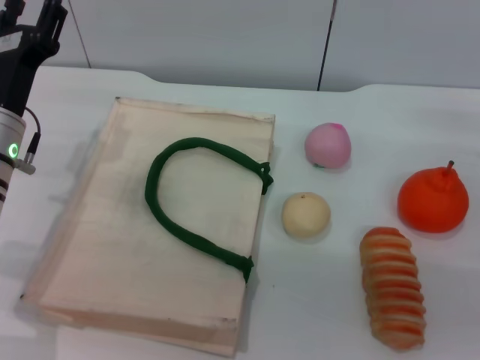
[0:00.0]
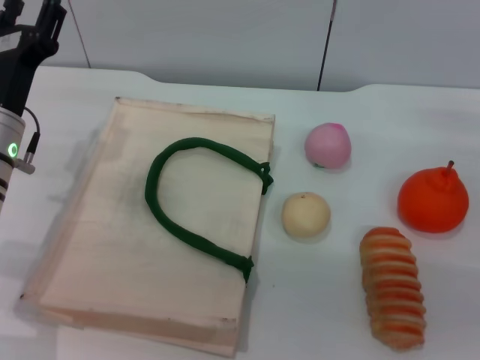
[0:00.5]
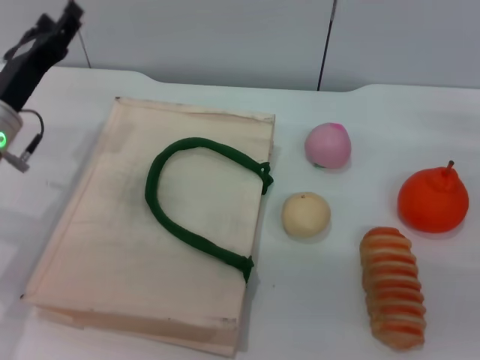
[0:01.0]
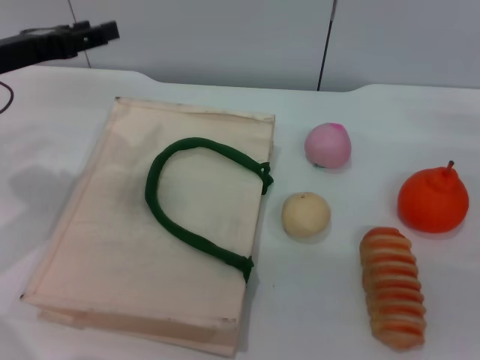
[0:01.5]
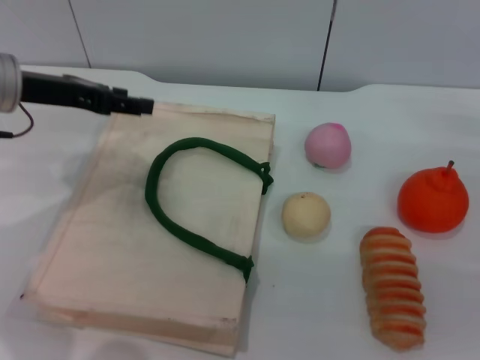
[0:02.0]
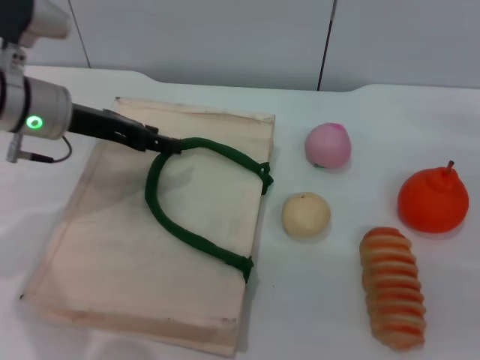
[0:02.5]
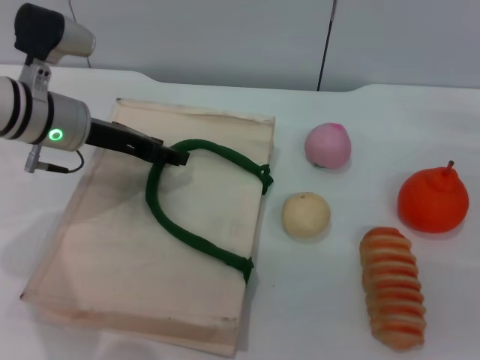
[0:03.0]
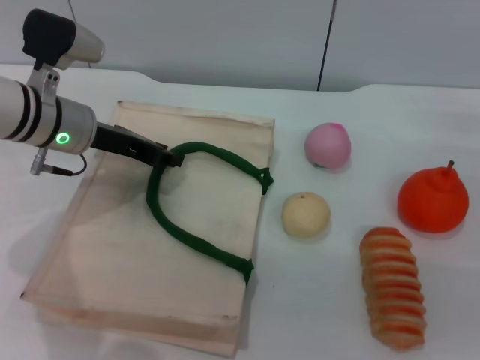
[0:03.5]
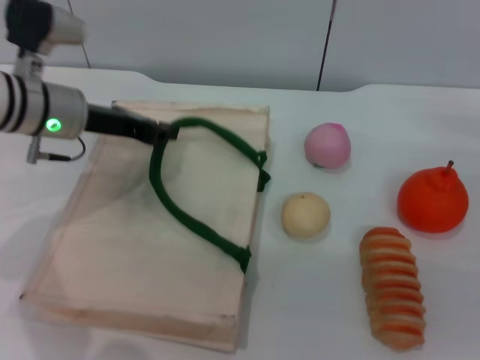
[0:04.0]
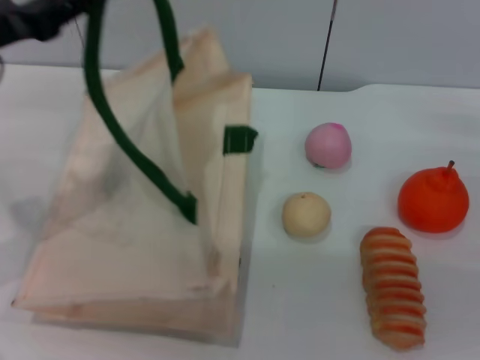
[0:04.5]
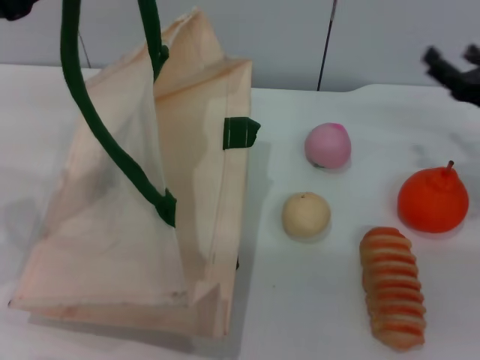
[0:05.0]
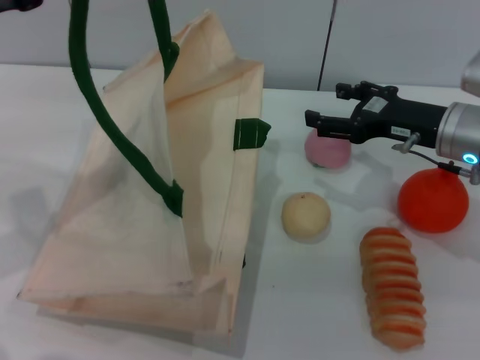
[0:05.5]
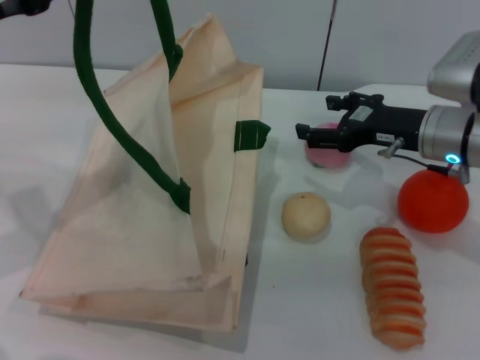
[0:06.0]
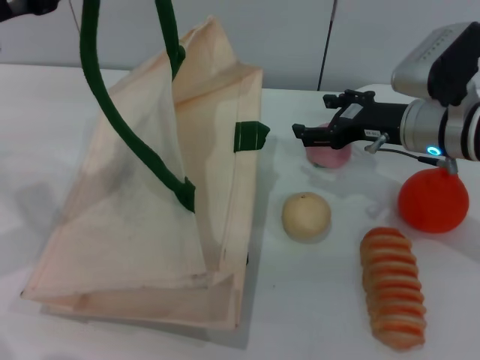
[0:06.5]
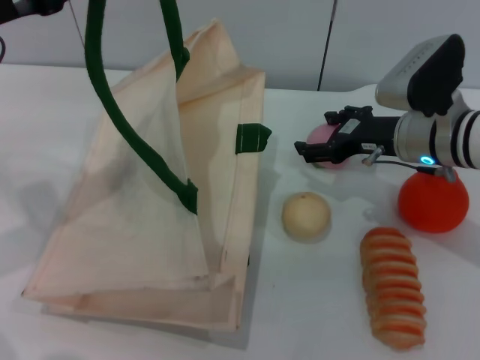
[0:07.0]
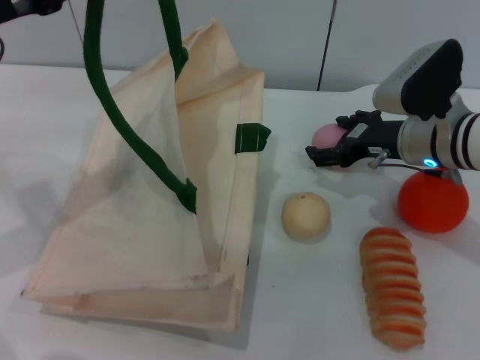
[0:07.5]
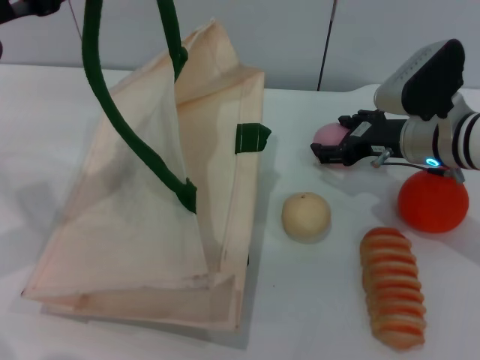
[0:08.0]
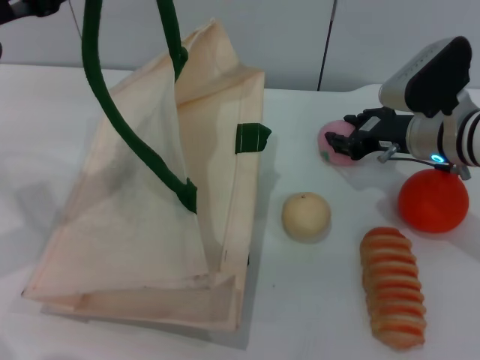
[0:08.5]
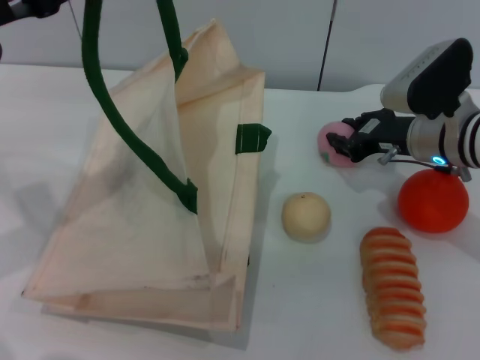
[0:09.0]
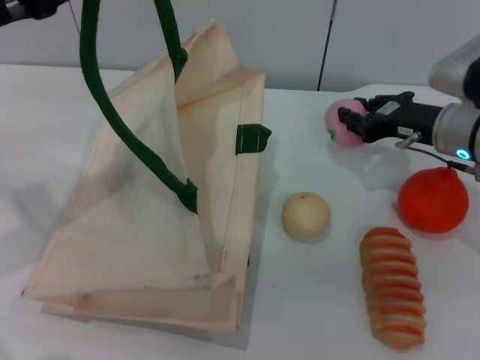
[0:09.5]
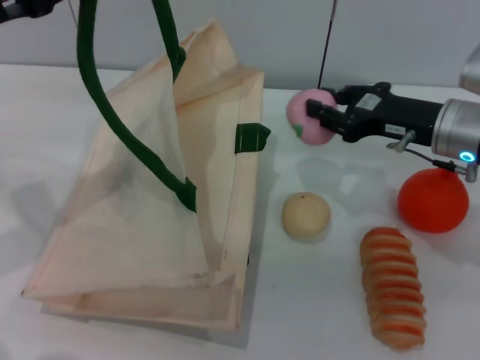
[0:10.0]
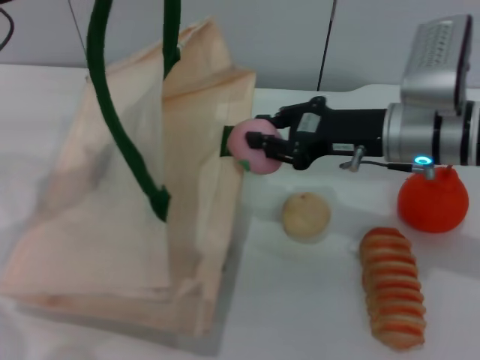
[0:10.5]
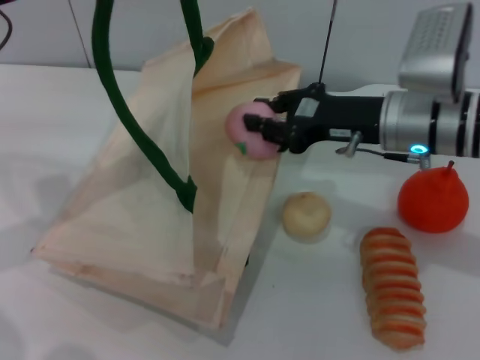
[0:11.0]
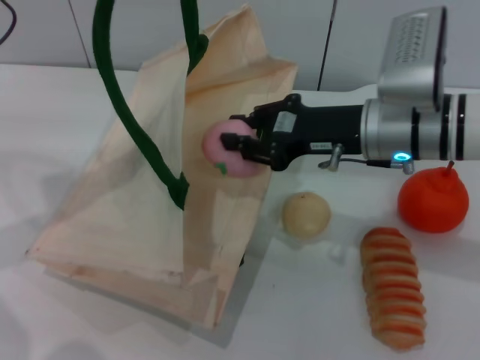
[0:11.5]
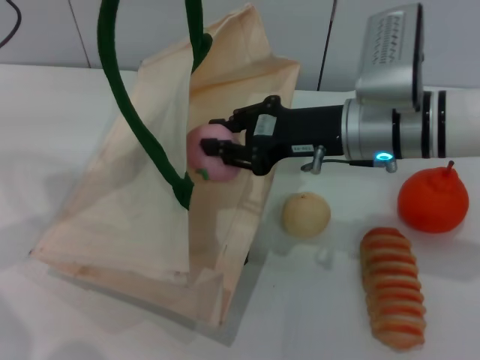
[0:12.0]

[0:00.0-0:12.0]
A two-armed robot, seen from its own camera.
Task of the whole recording: pick up the peach from the table and place it in the white handbag.
Step, 0:00.0 to 0:04.5: Lift the woven bag with the left gripper to open it.
Step, 0:05.0 to 0:09.5: Pick up the peach with the right gripper.
0:00.0 to 0:02.0: The left gripper is displaced upward and forward by about 10 cm.
0:02.0 to 0:04.0: The left gripper shifts by some 5 cm, and closes.
0:04.0 to 0:06.0: The left gripper is displaced upward, to the left and backward by about 15 cm; the right gripper travels to the left and forward by approximately 15 cm.
0:06.0 to 0:08.0: The grippers make only small movements.
0:08.0 to 0:10.0: The right gripper closes.
0:10.0 to 0:12.0: The right gripper is displaced to the left by about 10 cm.

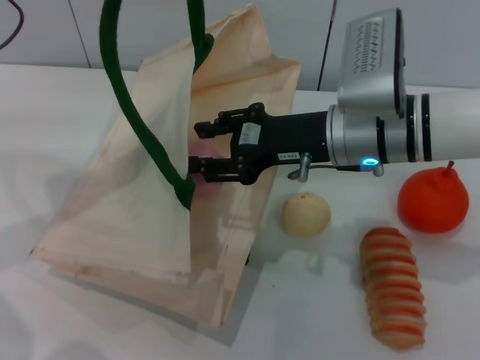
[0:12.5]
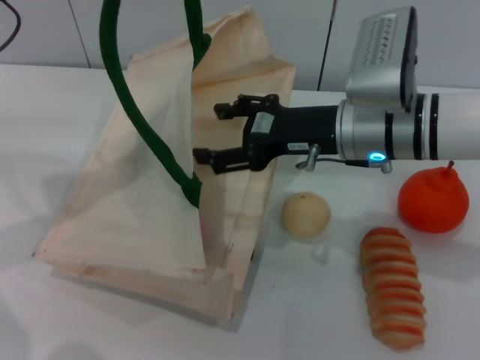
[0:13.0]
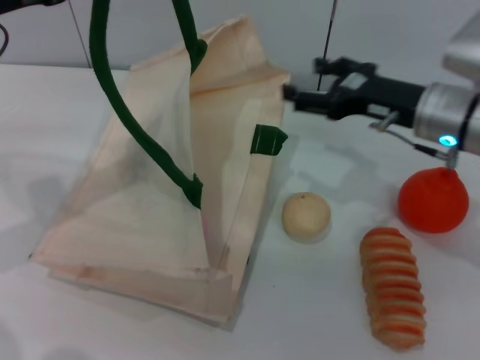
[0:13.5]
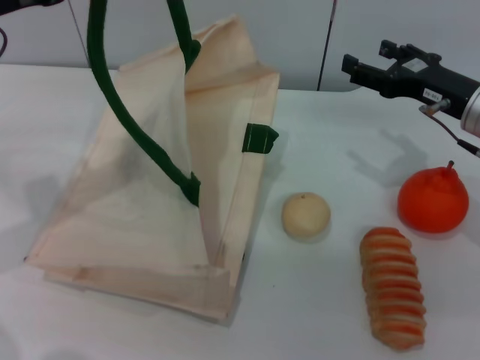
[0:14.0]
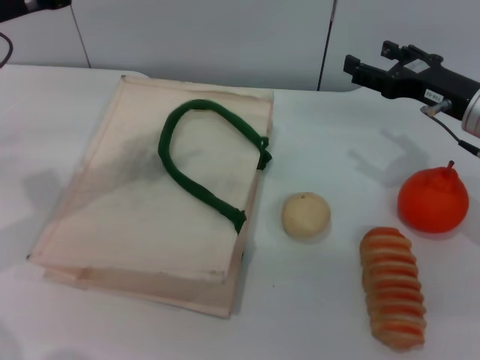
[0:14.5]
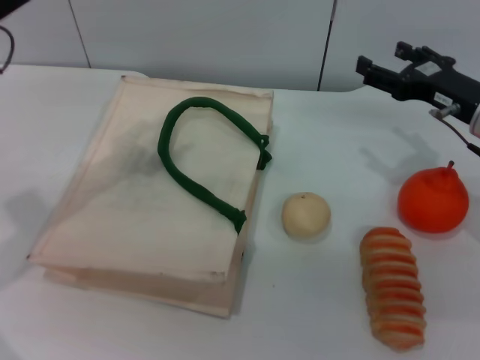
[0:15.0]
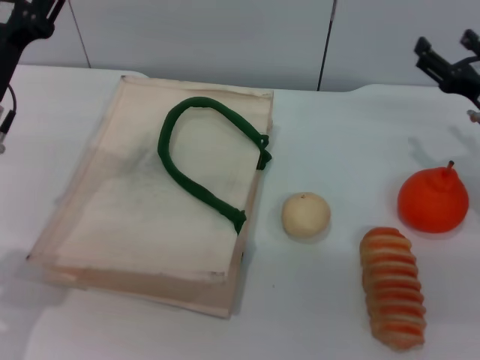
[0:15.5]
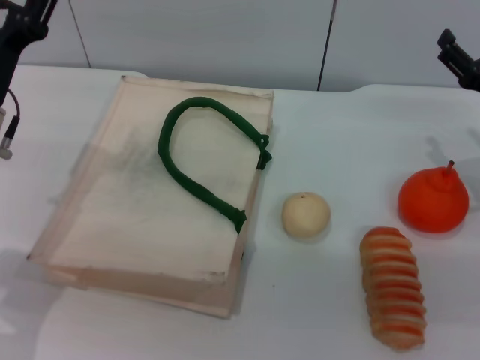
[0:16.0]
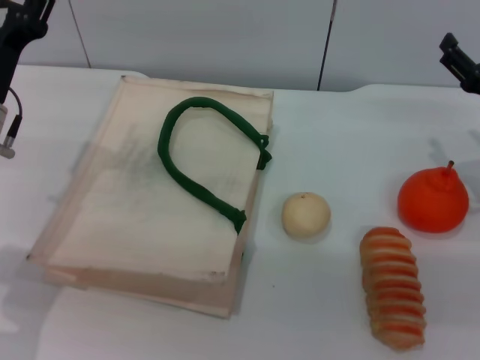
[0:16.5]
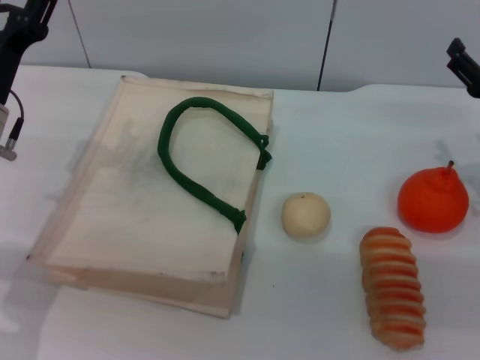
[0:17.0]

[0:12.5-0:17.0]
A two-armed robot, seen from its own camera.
Task of the whole recording: pick up the peach from the table and place it in the white handbag.
Step, 0:13.0 to 0:14.5: Lower the woven bag with the left gripper to close it.
0:12.5 to 0:14.5: The left gripper opens. The right gripper heads to the right, covering some 15 cm, and opens up.
0:14.5 to 0:17.0: The right gripper shifts roughly 5 cm to the right, while the left gripper goes some 10 cm downward, and opens its fingers.
